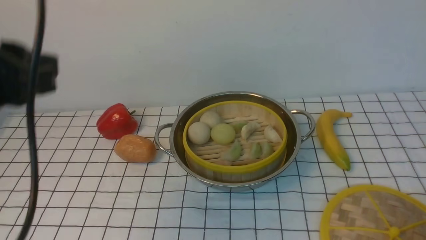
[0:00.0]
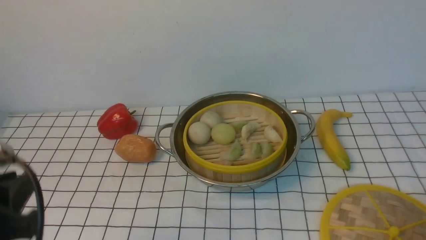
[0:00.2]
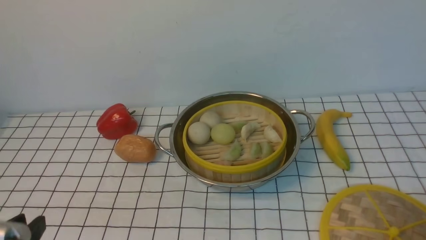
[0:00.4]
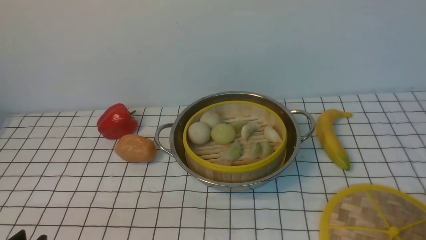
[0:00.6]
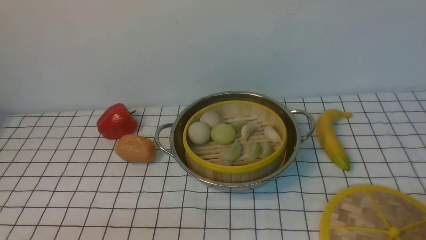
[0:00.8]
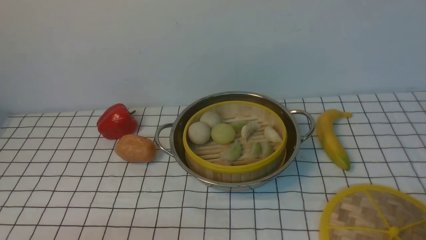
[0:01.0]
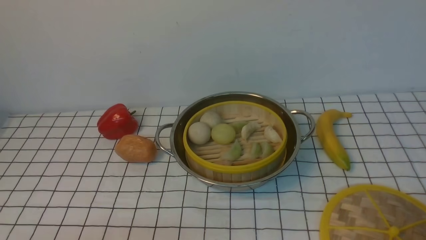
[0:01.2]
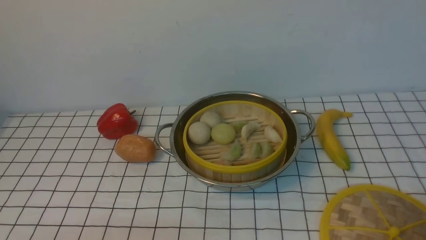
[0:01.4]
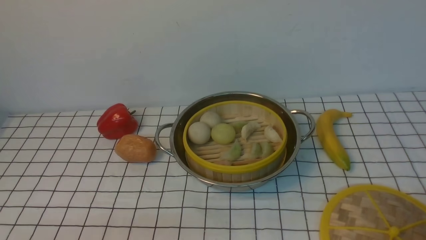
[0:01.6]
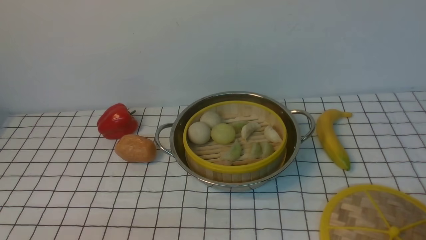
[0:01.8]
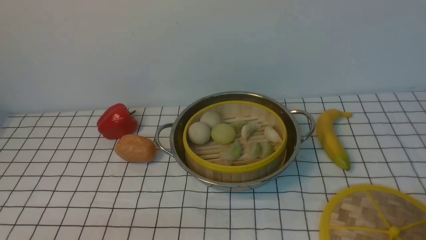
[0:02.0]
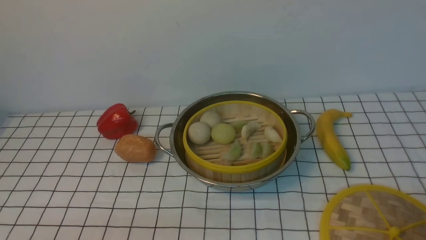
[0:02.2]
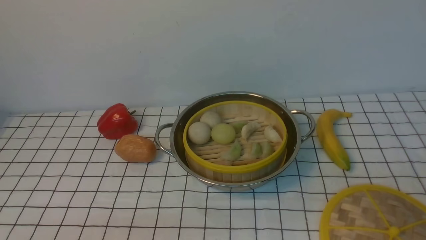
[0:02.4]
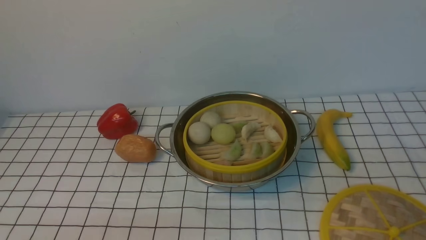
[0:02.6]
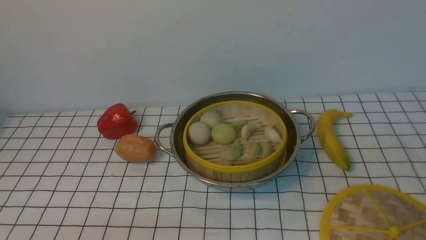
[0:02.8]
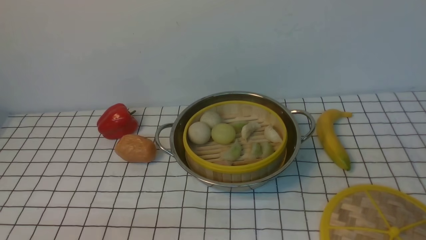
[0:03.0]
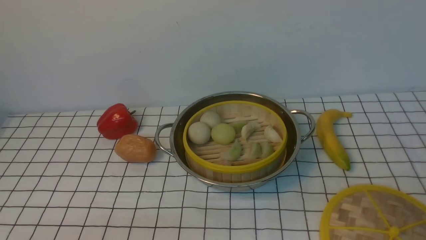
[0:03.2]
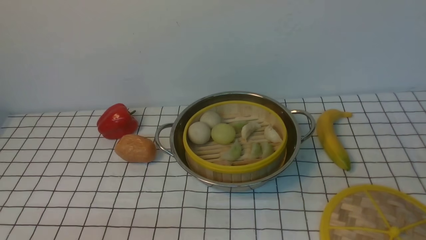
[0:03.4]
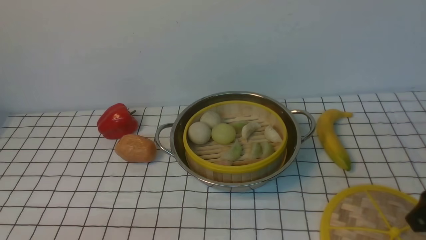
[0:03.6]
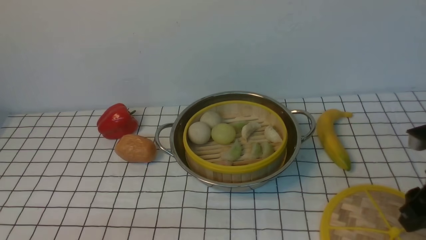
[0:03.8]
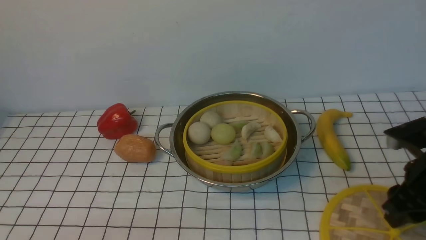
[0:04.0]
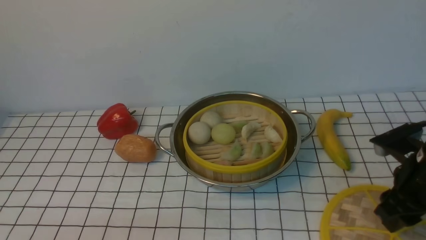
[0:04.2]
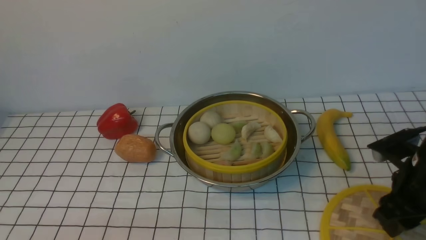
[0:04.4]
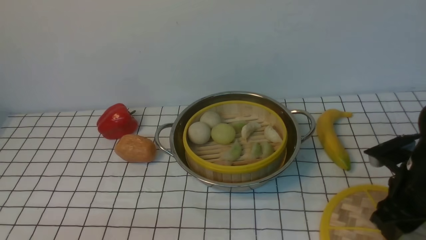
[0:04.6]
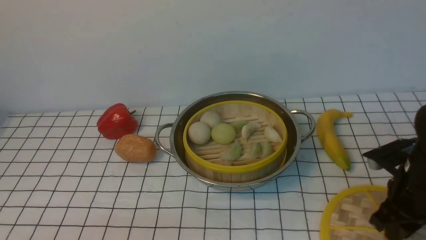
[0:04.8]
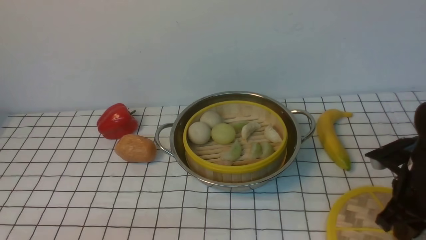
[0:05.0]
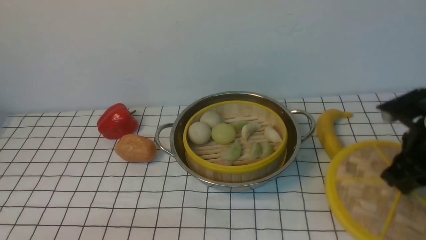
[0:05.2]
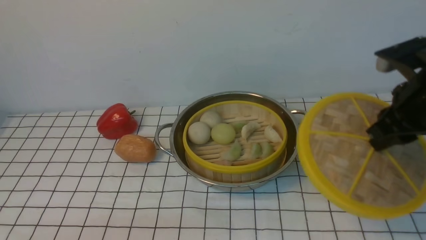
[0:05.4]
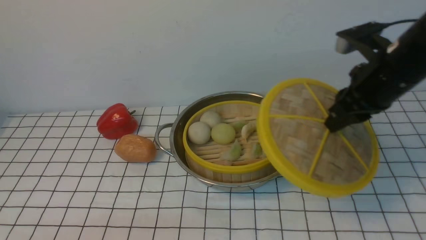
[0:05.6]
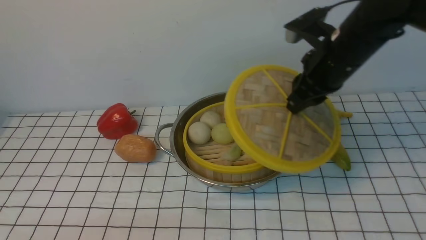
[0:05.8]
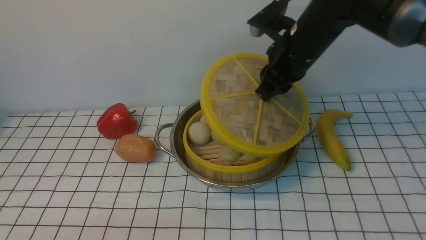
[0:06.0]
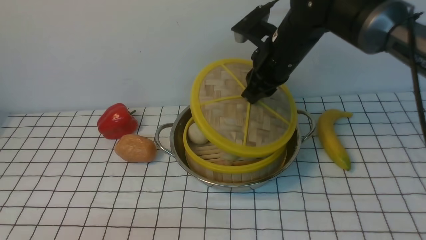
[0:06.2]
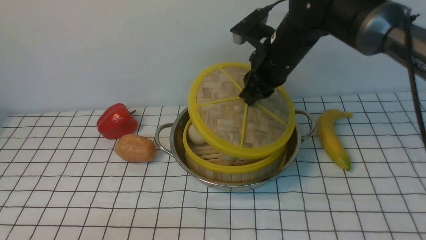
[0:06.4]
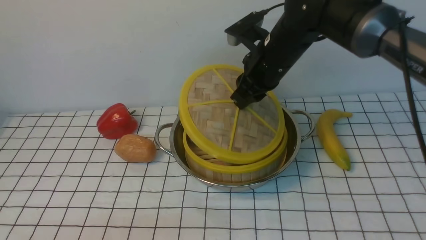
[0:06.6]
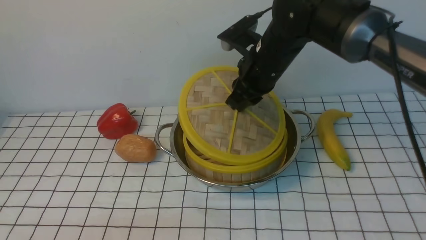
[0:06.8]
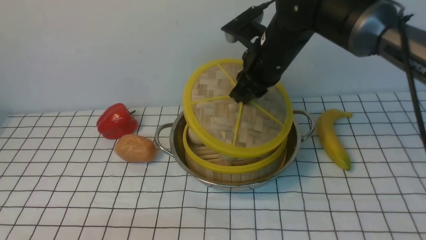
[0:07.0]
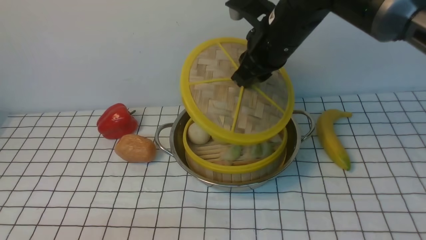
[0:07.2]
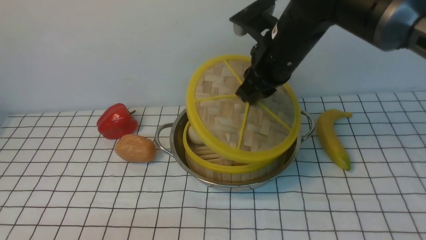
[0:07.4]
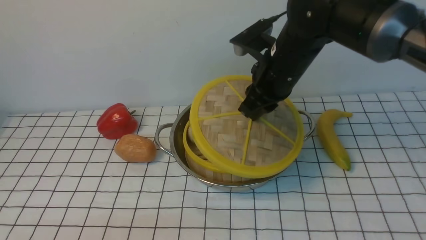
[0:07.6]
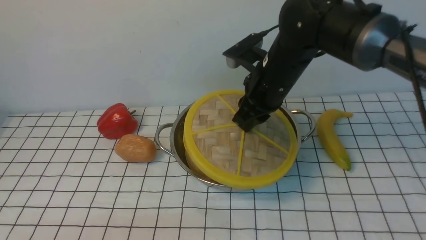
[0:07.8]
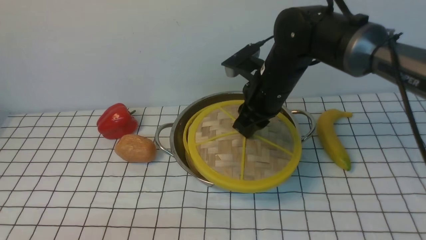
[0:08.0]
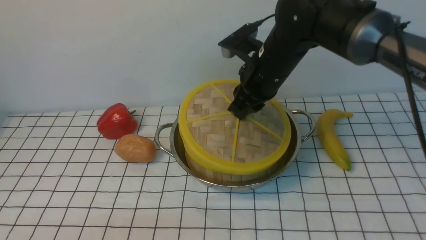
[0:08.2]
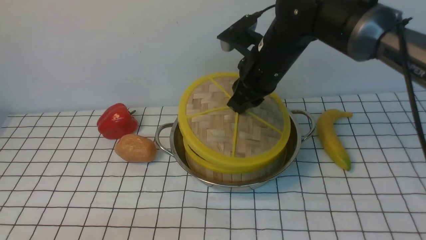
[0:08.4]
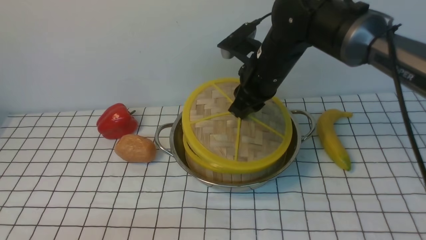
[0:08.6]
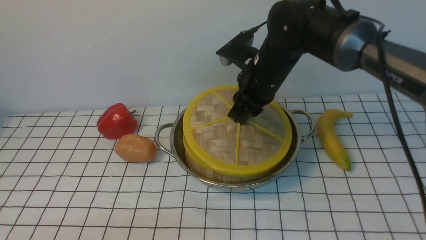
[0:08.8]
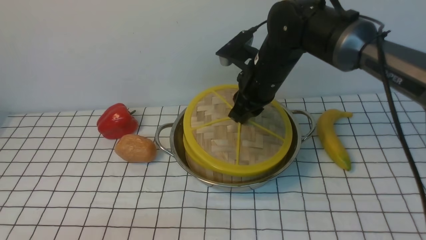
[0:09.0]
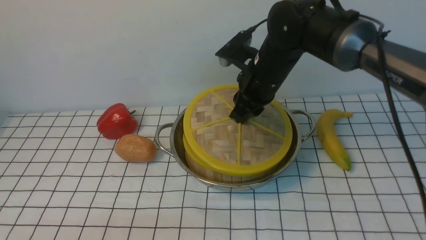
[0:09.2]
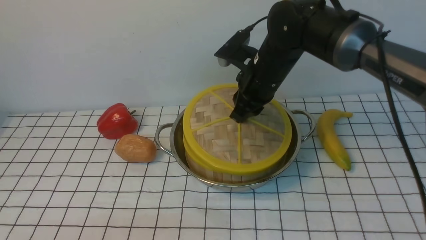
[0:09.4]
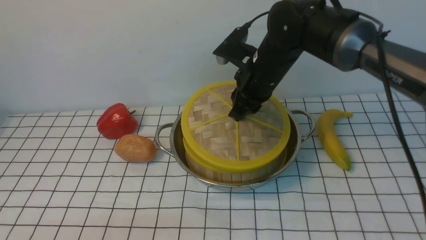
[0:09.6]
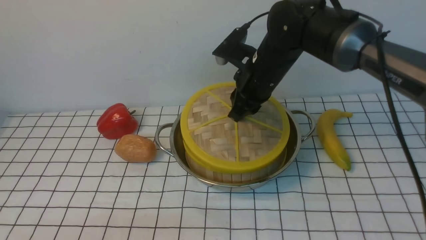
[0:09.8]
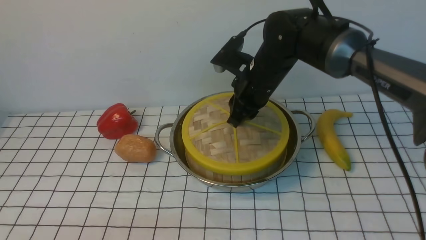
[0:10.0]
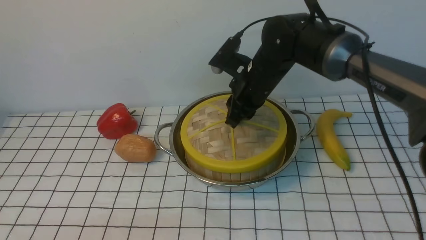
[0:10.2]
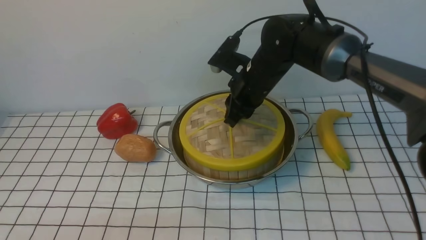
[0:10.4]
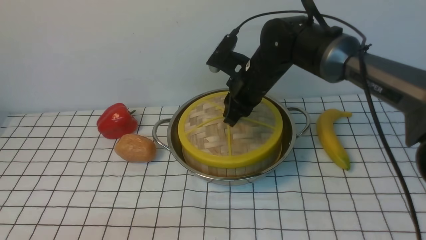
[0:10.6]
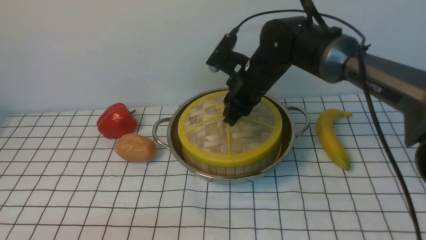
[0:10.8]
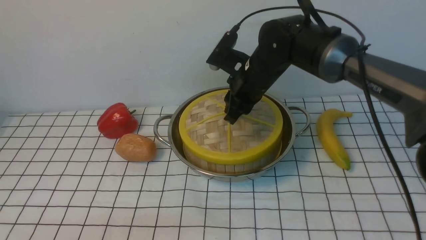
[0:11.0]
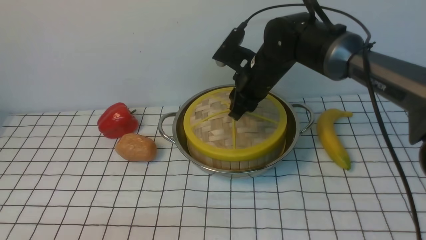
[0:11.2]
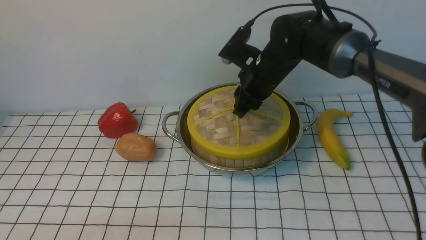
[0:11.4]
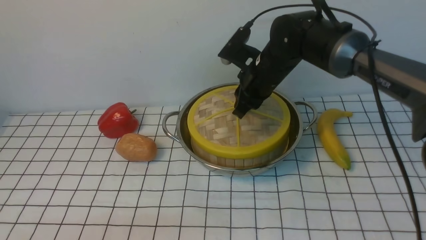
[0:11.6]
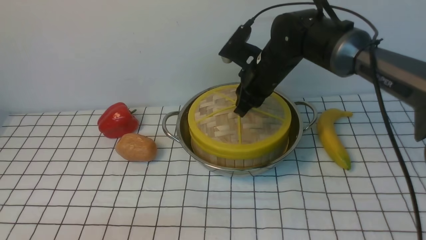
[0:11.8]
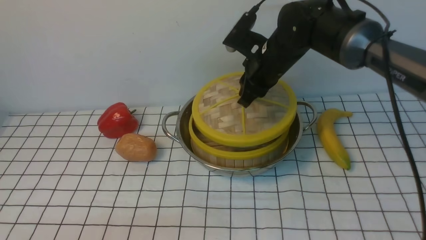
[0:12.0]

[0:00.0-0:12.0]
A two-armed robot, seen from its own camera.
Task of the whole recording: place the steamer in the pot on the white tablecloth, and put the lid on the steamer.
Step, 0:00.0 to 0:05.2: use the right arm to lift the lid of the steamer.
0:00.0 to 0:01.6: The left gripper moves downward and backward, roughly 25 cm.
0:03.0 to 0:04.4: The right gripper shifts roughly 20 cm forward and downward.
0:04.4 to 0:06.0: The right gripper goes about 25 cm to the left, forward and upward, and closes up.
0:06.0 to 0:07.6: The grippers make only small movements.
0:07.6 to 0:09.0: The grippers move only a little.
0:09.0 to 0:12.0: The grippers stay close to where they were, moving slightly.

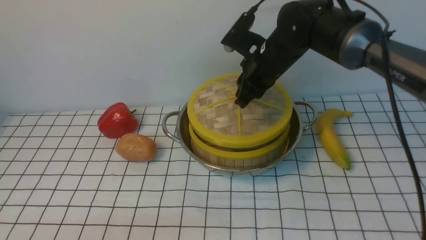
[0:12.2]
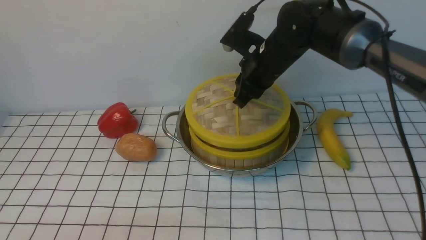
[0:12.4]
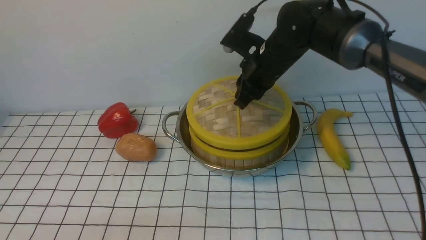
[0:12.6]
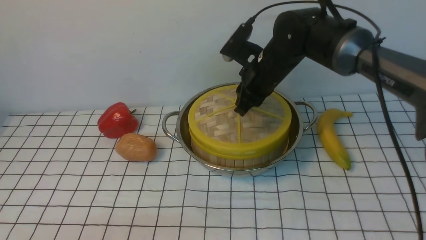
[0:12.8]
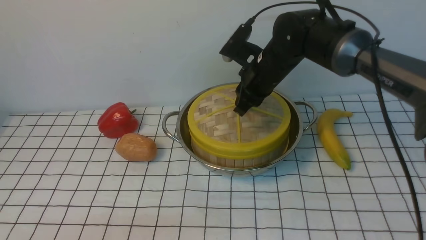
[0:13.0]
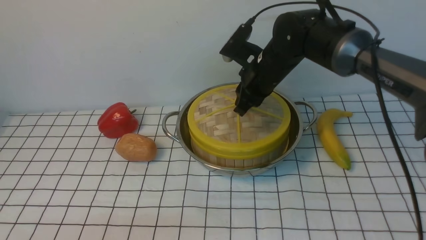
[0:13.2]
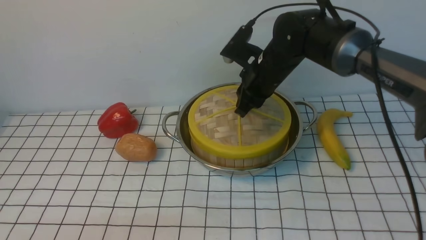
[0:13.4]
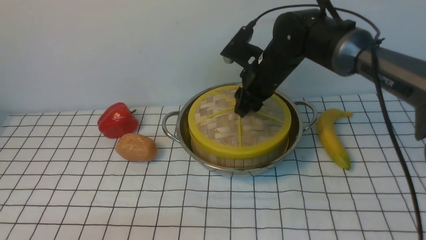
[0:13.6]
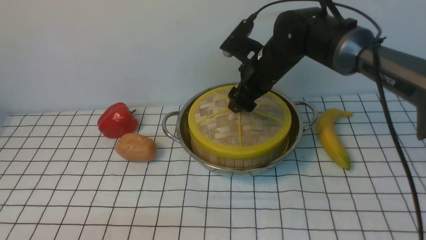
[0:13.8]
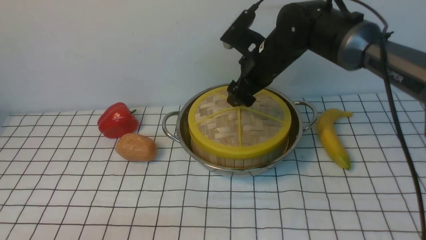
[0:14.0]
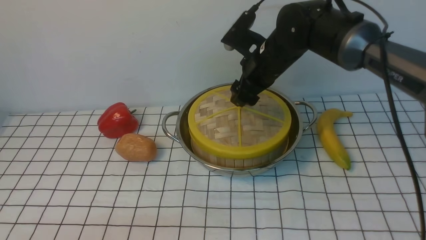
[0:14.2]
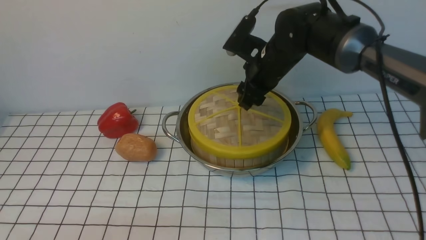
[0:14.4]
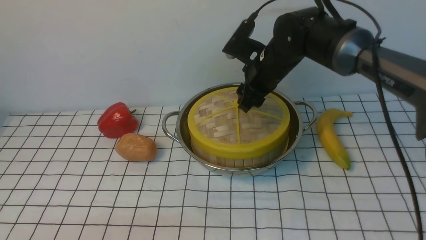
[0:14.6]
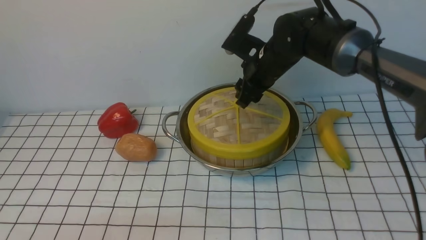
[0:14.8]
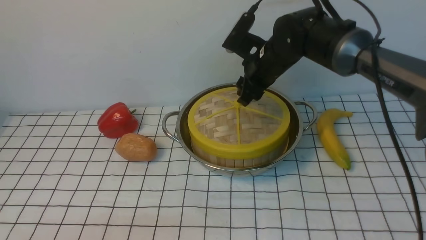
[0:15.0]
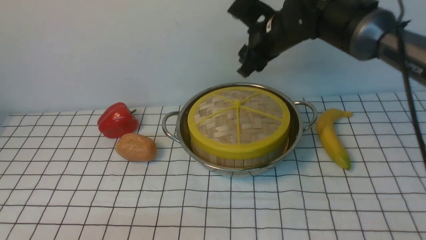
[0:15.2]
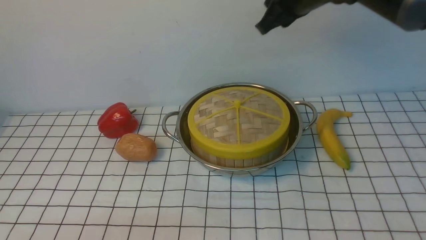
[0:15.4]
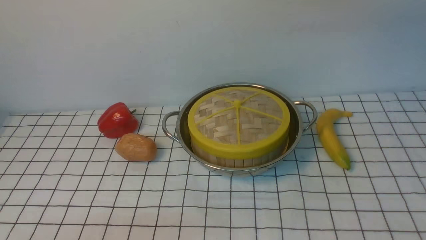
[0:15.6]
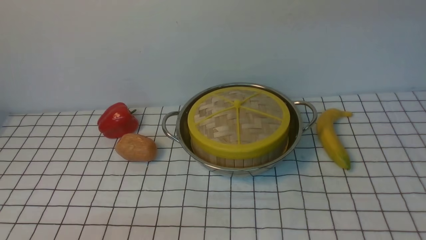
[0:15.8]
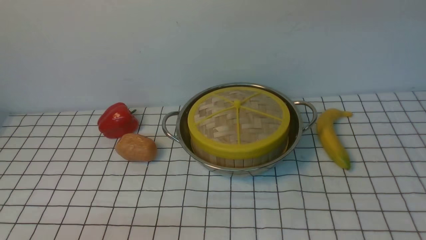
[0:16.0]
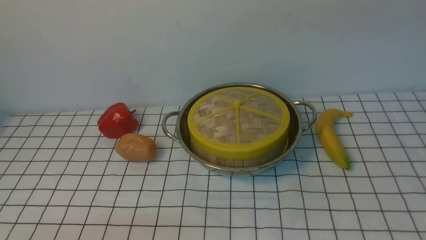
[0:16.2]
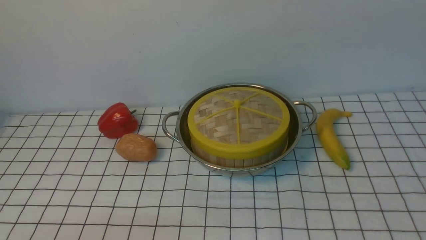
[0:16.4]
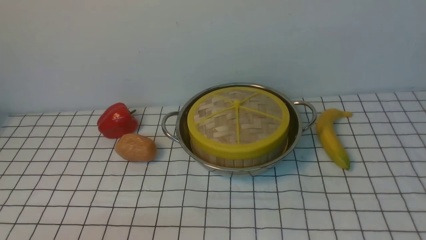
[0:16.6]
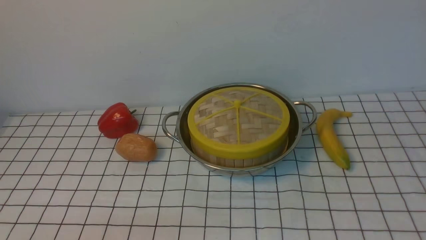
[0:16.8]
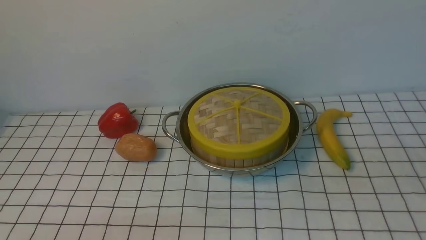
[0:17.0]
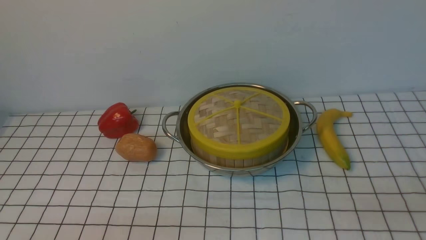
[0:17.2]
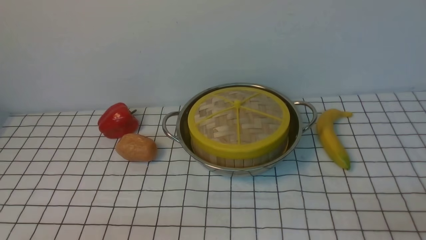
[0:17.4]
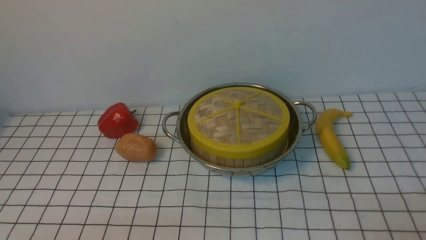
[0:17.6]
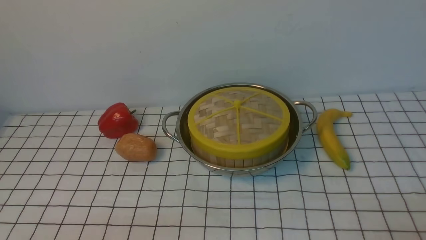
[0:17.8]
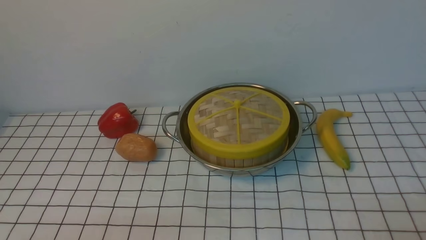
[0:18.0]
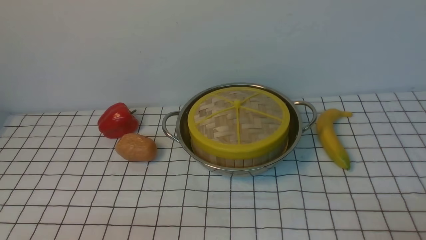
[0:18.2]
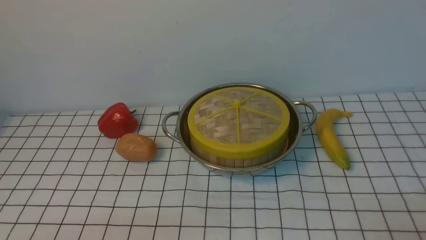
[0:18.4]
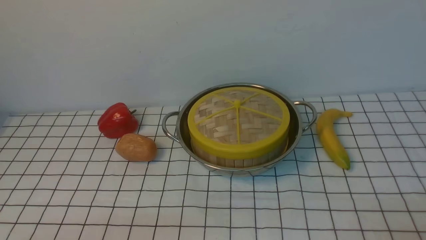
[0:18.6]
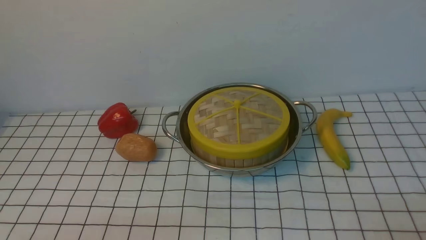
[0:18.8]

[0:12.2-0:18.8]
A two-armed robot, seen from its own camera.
Task of the whole recording: place the steamer in the pot on the white tablecloth, and put the lid on the steamer.
Step, 0:12.2 to 0:15.0: use the right arm to place the steamer lid on the steamer.
0:12.2 to 0:13.8: The right gripper opens its fingers.
0:13.8 to 0:15.4: The right gripper is displaced upward by roughly 15 cm, and closes.
0:15.4 to 0:17.2: The right gripper heads backward, to the right and downward, covering some 40 cm.
